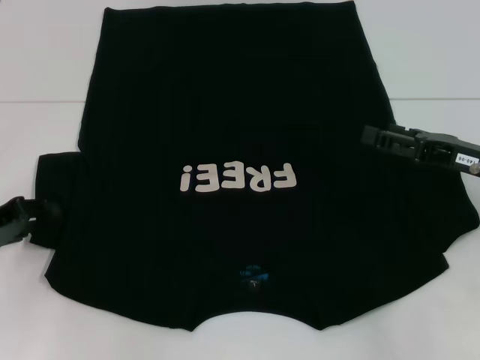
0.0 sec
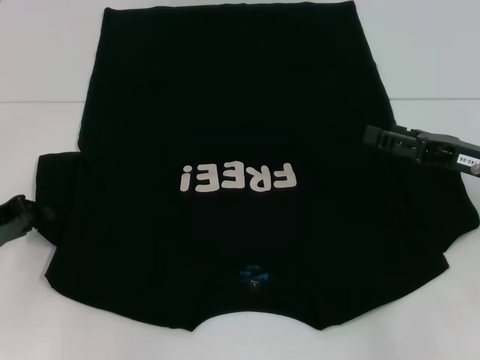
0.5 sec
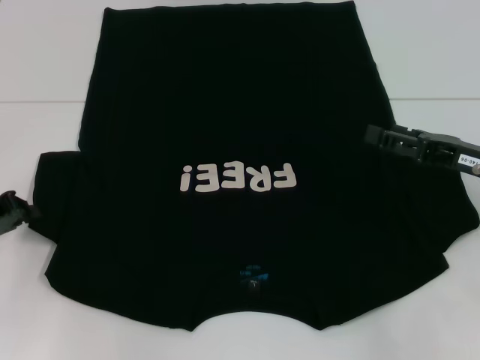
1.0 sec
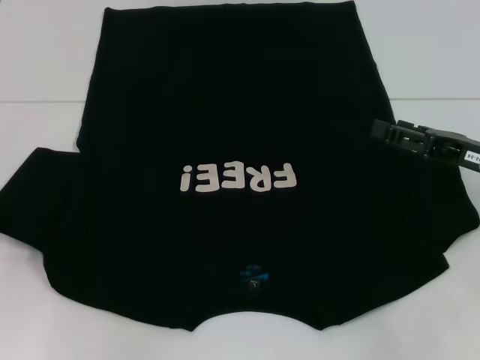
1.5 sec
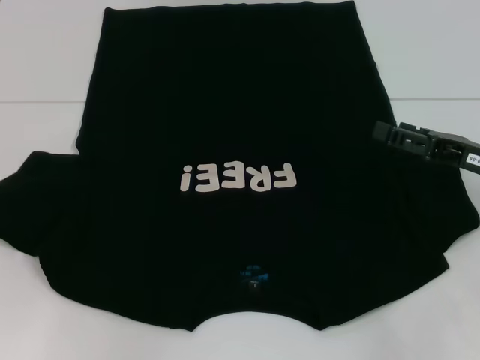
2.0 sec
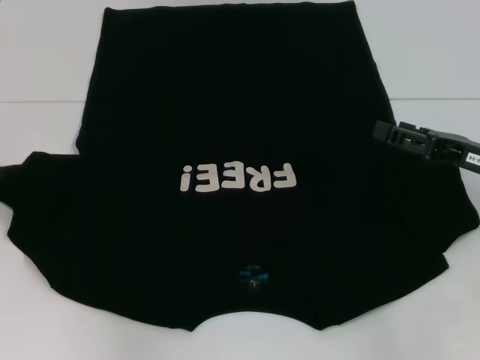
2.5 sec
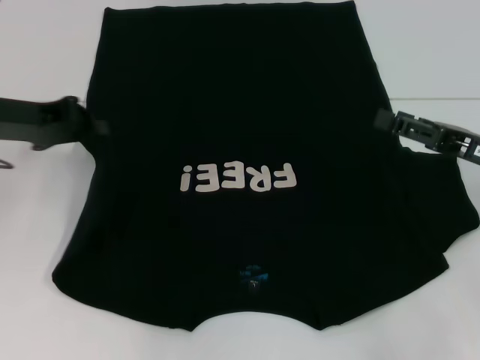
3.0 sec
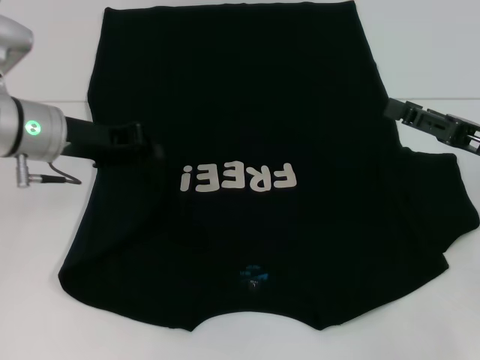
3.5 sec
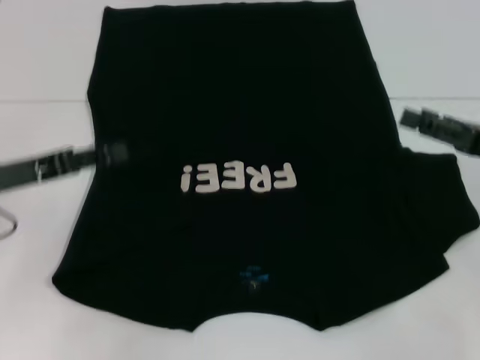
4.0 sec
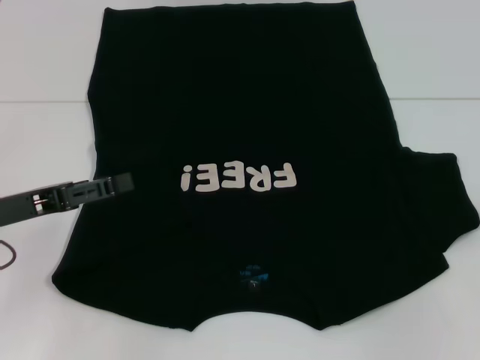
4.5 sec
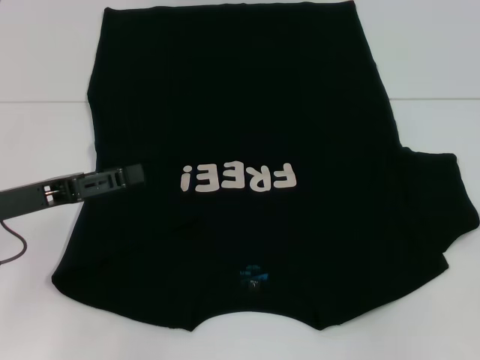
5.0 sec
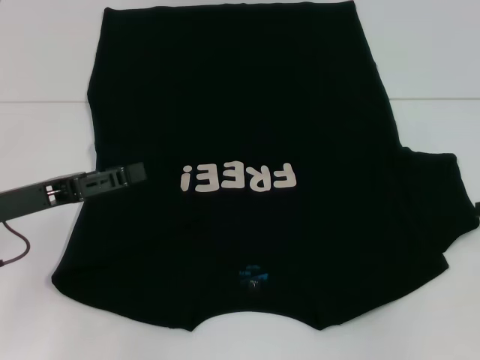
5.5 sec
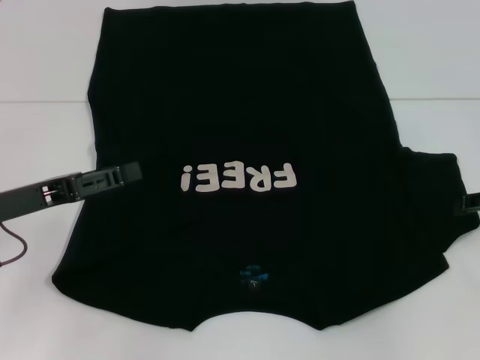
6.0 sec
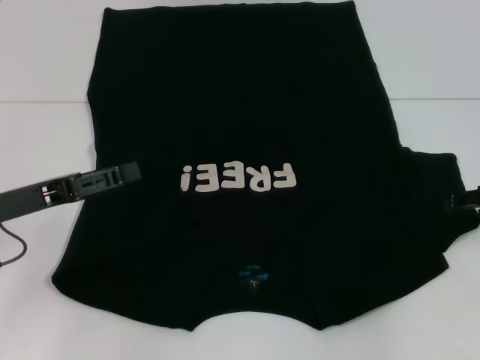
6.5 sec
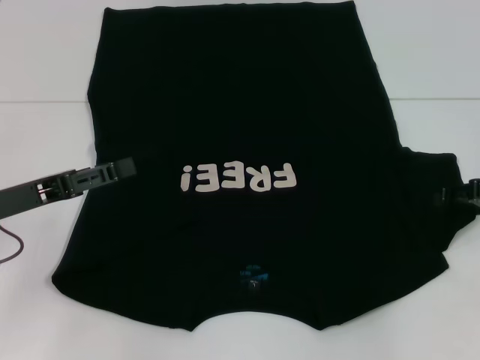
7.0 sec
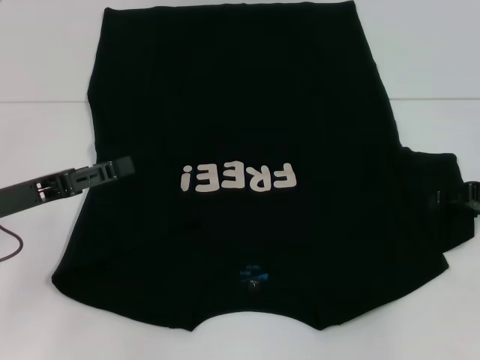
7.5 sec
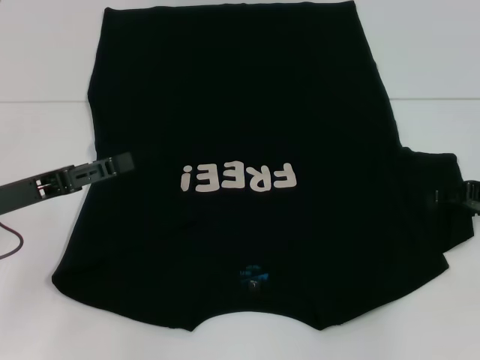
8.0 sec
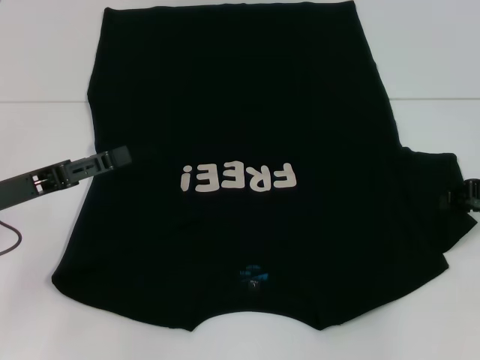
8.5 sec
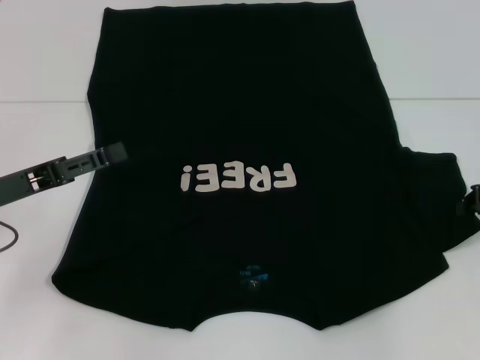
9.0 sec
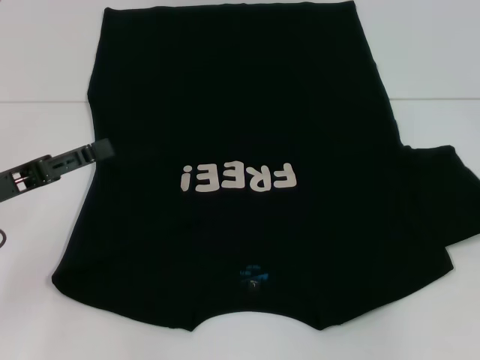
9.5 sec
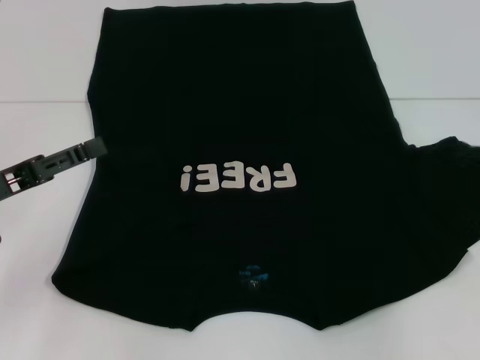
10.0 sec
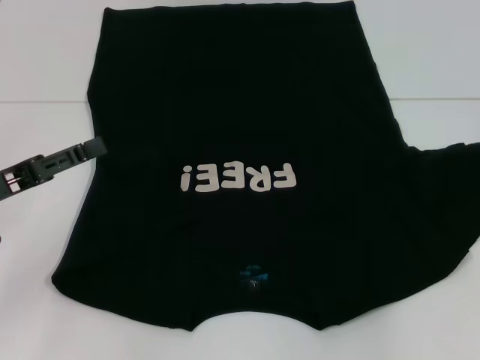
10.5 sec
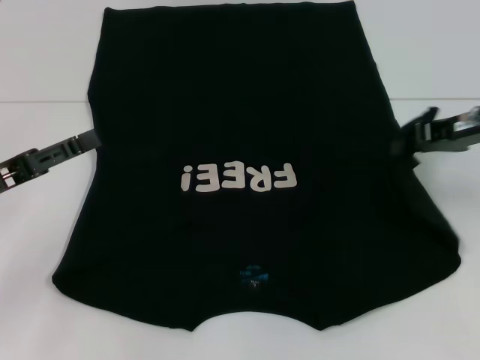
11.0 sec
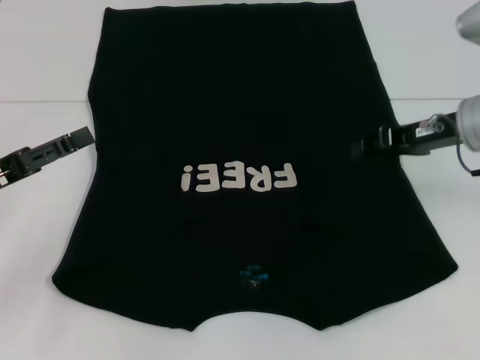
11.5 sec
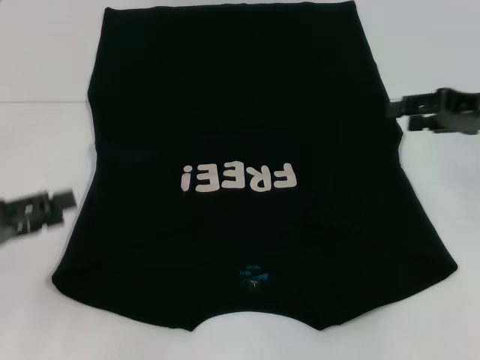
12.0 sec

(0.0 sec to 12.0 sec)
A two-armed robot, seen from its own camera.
Step, 0.0 sec - 4.0 sec: Fold the bottom left sleeve with your left hand.
Step, 4.5 sec - 11.5 sec: Fold the bottom right sleeve with your right hand.
0.0 sec - 2.0 sec: The left gripper heads to the left, covering about 5 cm, and closes up.
2.0 sec - 4.0 sec: The left gripper shifts roughly 10 cm to the right.
4.0 sec - 6.0 sec: The left gripper opens up.
6.0 sec - 8.0 sec: The grippers make only small movements.
8.0 sec - 10.0 sec: The right gripper ends up roughly 5 cm from where it was, and closes.
10.0 sec - 12.0 sec: The right gripper shifts approximately 5 cm to the left, and opens up.

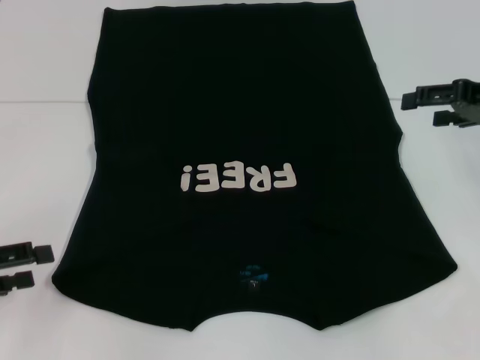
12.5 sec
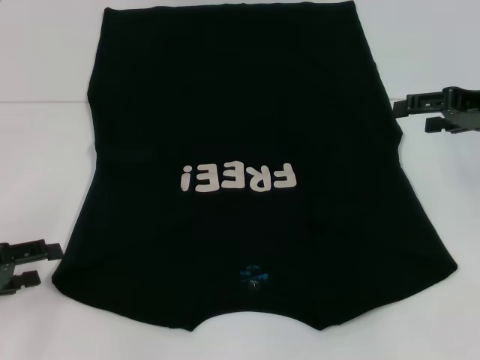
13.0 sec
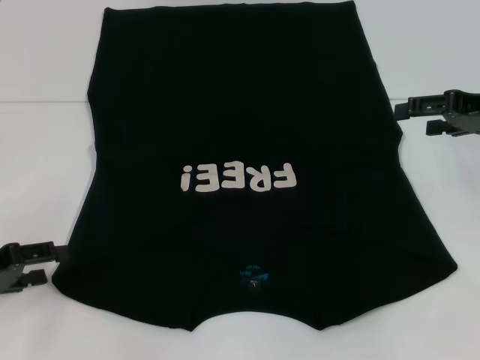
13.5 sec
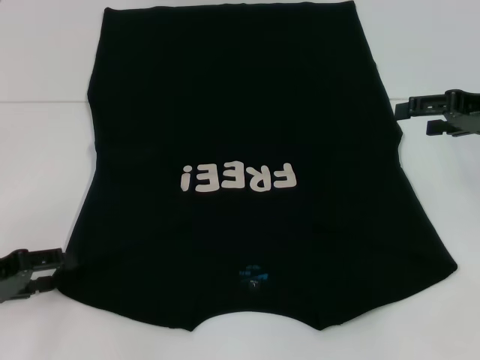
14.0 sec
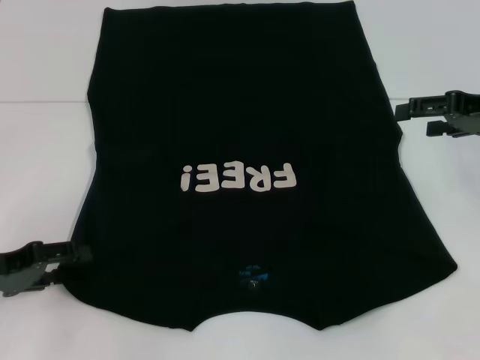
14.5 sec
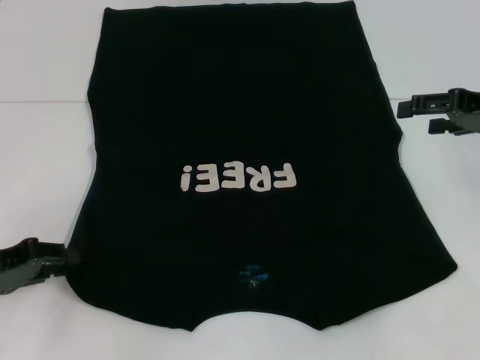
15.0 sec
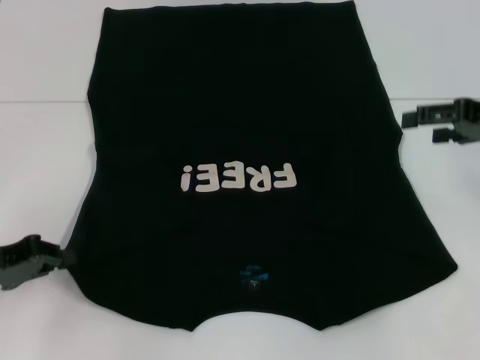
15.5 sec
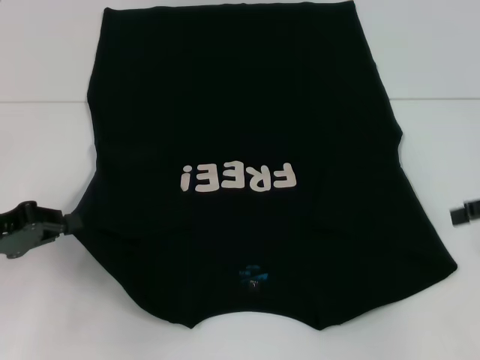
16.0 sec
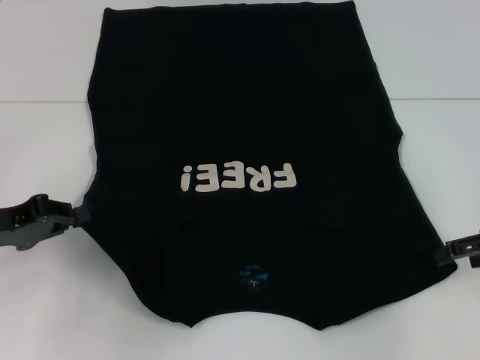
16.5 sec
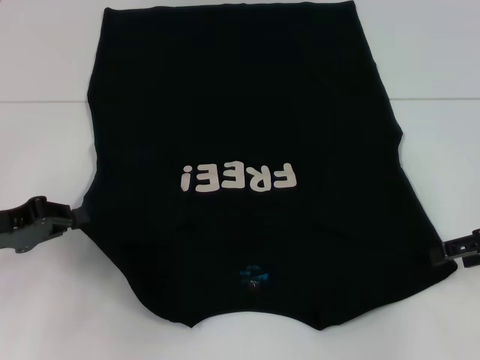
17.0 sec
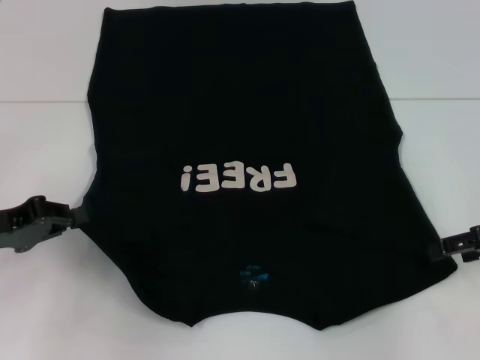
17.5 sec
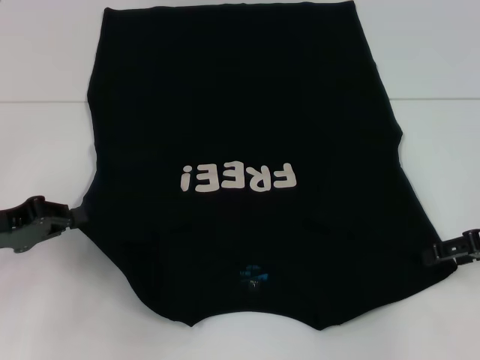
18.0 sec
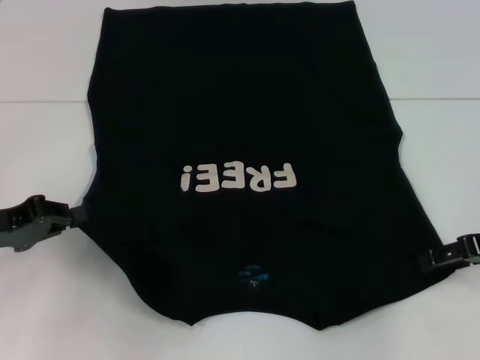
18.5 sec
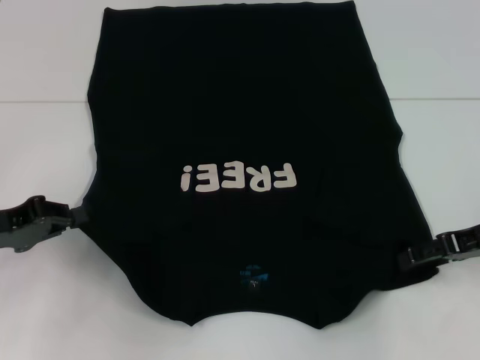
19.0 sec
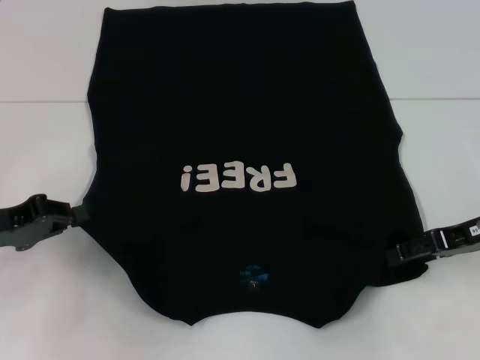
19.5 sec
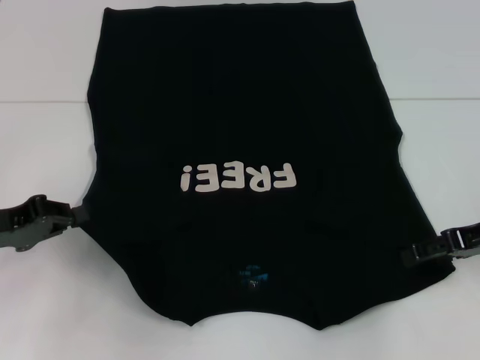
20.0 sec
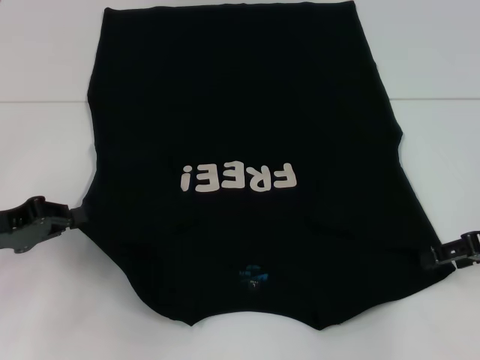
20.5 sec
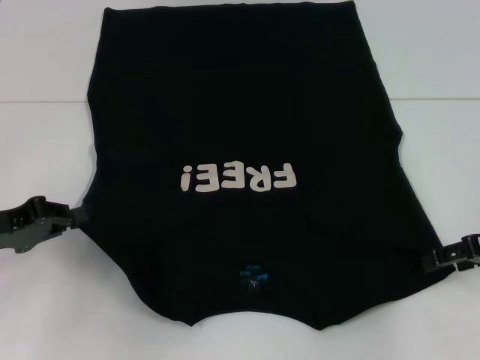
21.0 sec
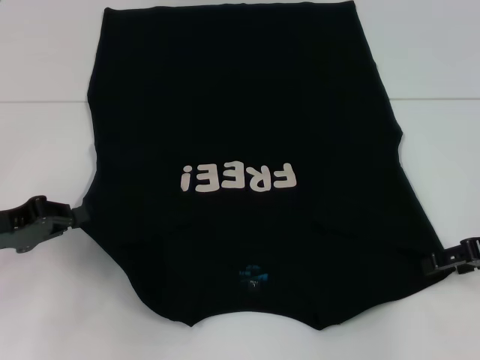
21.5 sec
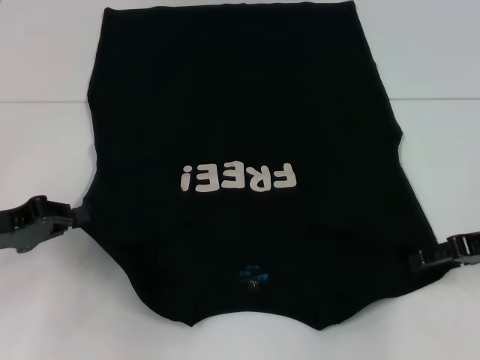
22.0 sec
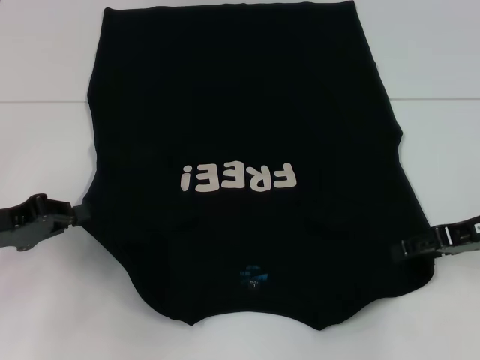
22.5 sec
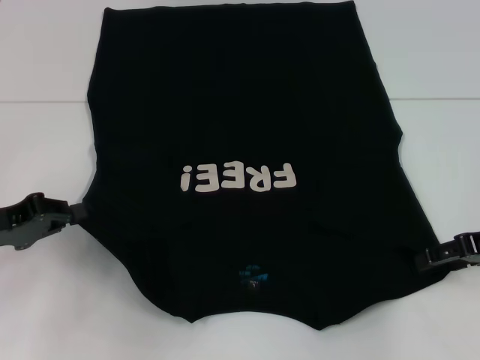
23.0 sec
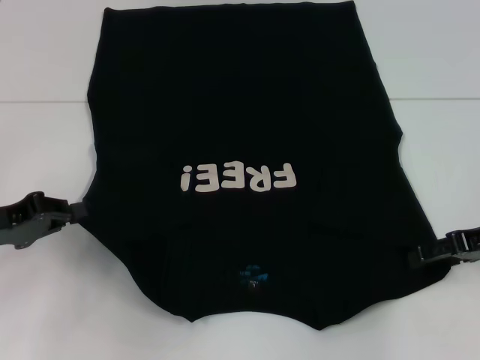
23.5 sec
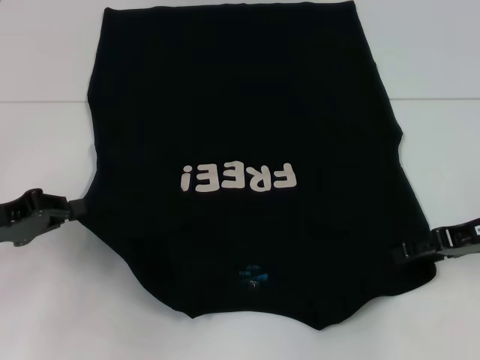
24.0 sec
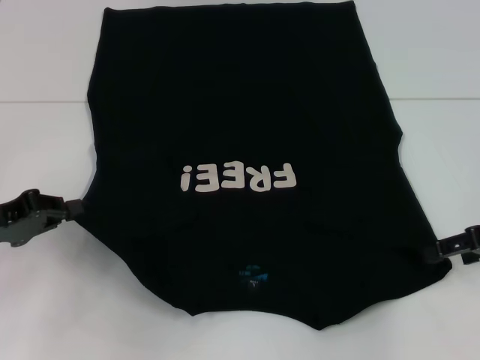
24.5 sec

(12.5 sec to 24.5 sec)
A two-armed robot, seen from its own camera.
Step, 12.5 sec - 15.0 sec: Grab the bottom left corner with your left hand.
12.5 sec - 14.5 sec: The left gripper ends up approximately 5 cm from where it was.
14.5 sec - 16.5 sec: The left gripper closes its fingers. Meanwhile the right gripper heads backward and downward, covering some 10 cm.
16.5 sec - 18.5 sec: The grippers move only a little.
20.5 sec - 24.5 sec: The grippers move only a little.

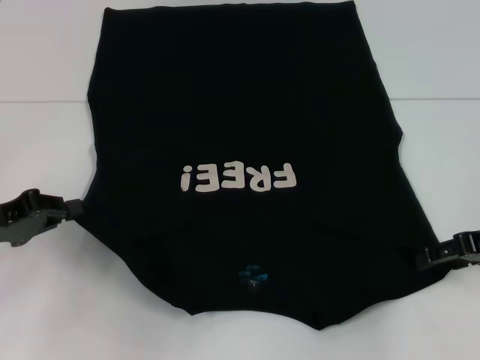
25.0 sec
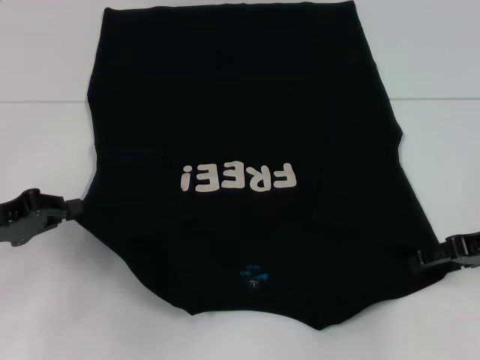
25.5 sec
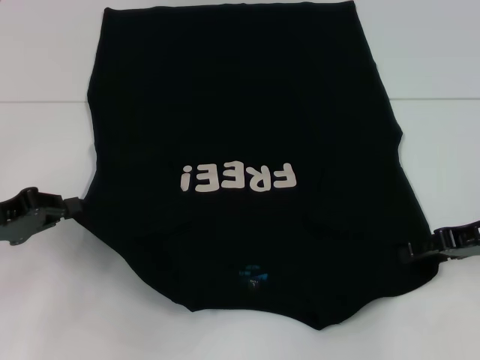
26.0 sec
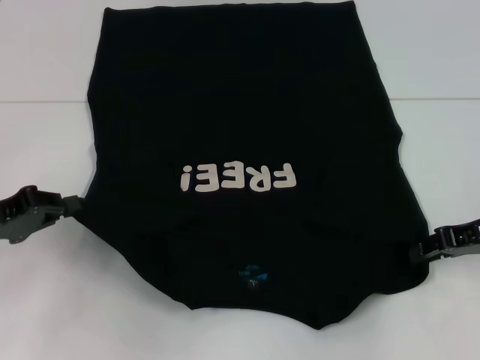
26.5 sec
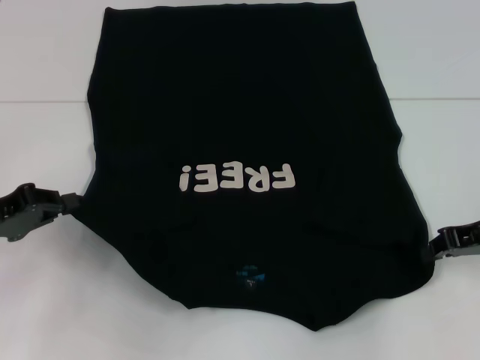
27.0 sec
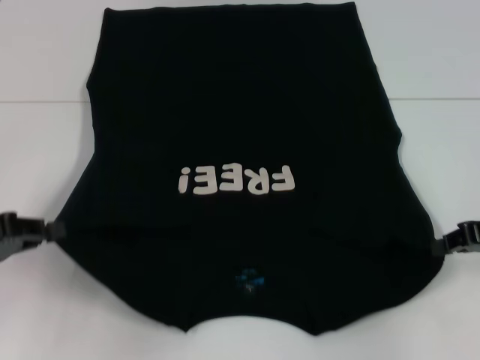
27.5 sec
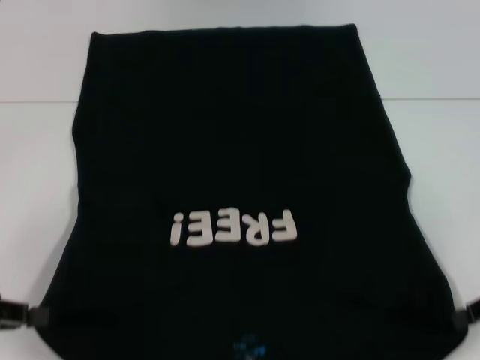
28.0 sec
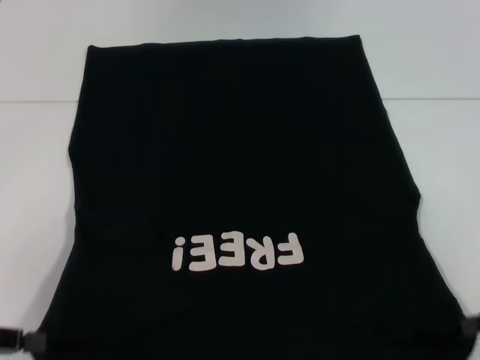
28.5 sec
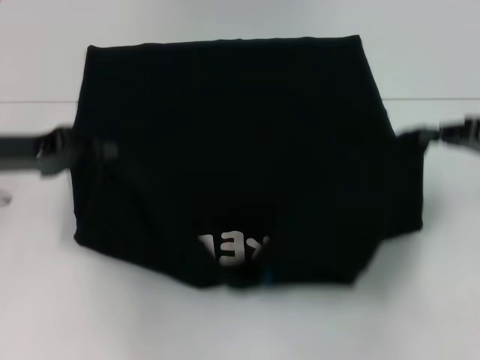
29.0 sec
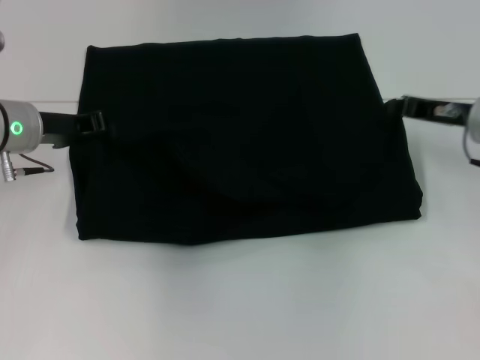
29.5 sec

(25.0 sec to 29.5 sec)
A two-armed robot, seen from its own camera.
25.0 sec - 27.0 sec: The right gripper closes.
27.0 sec - 29.5 sec: The left gripper goes some 15 cm forward and to the right. The right gripper shifts about 10 cm forward.
